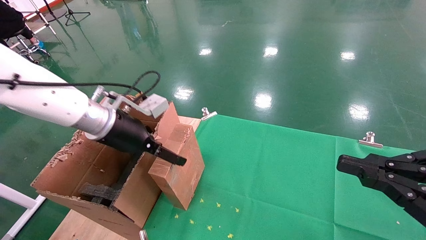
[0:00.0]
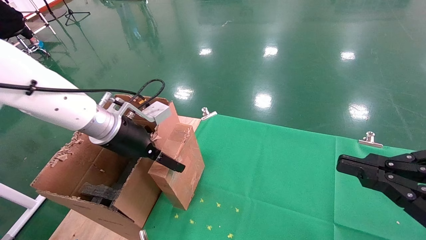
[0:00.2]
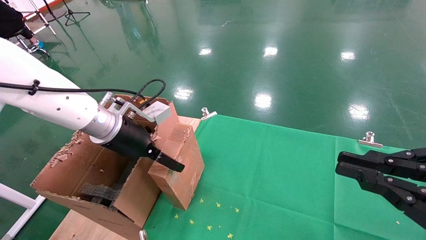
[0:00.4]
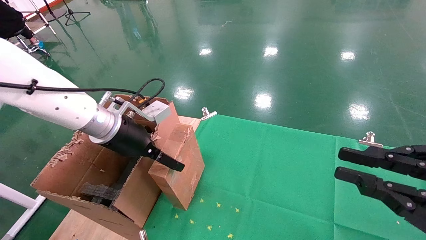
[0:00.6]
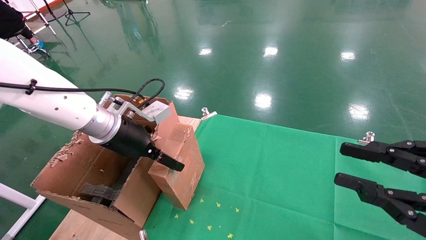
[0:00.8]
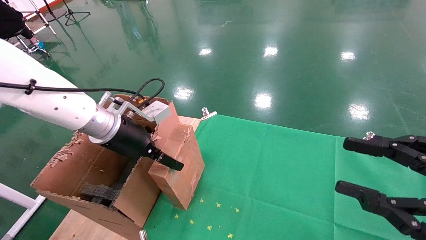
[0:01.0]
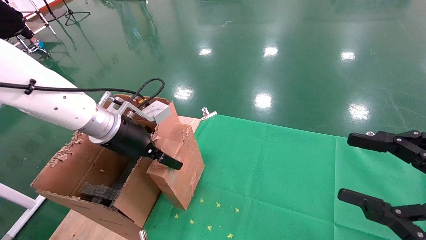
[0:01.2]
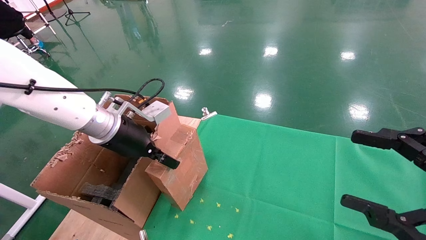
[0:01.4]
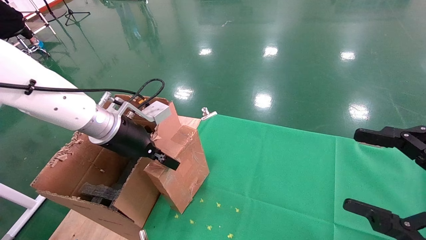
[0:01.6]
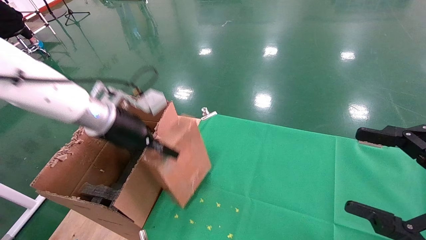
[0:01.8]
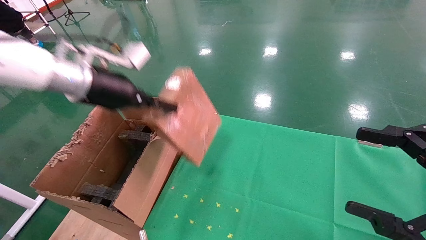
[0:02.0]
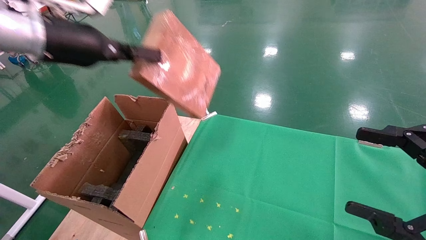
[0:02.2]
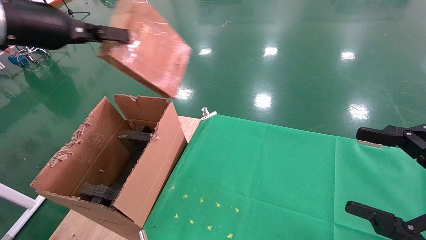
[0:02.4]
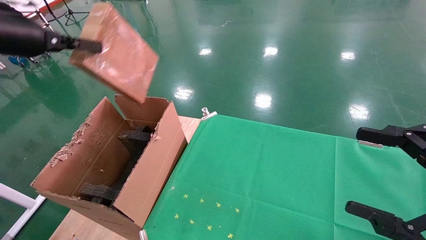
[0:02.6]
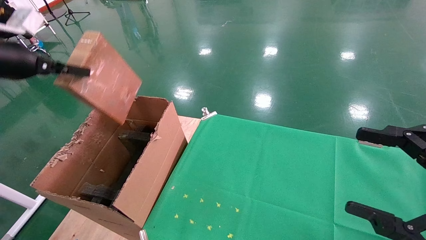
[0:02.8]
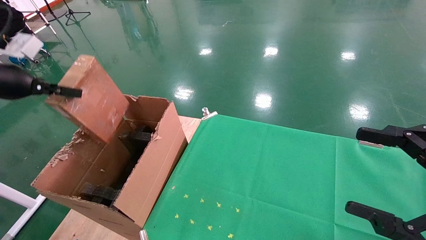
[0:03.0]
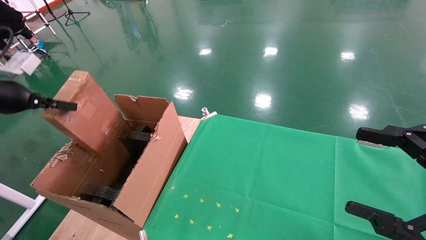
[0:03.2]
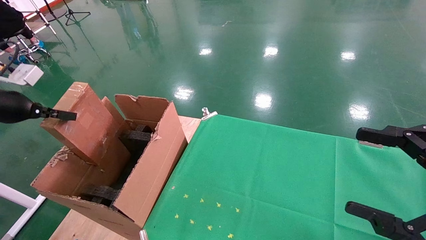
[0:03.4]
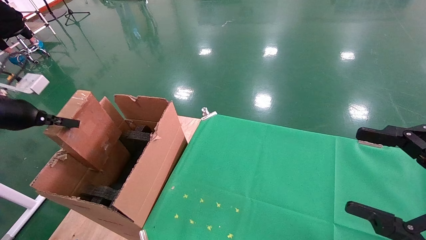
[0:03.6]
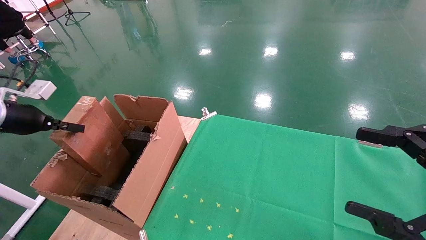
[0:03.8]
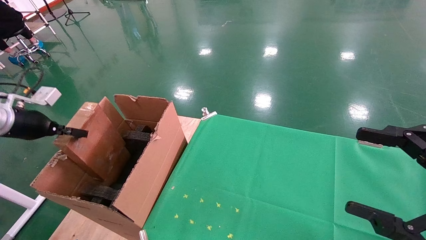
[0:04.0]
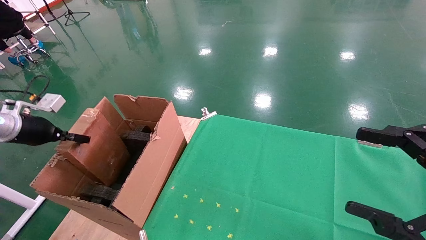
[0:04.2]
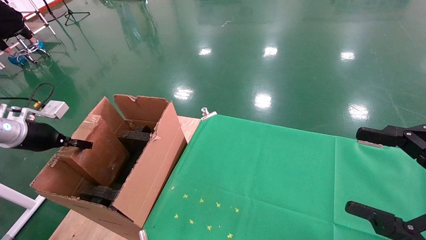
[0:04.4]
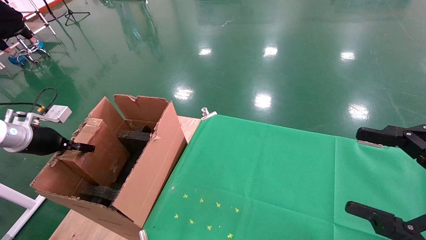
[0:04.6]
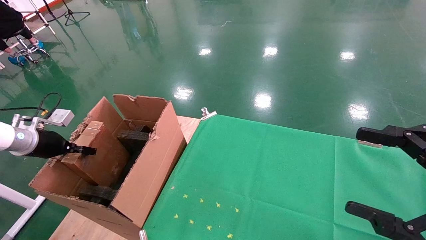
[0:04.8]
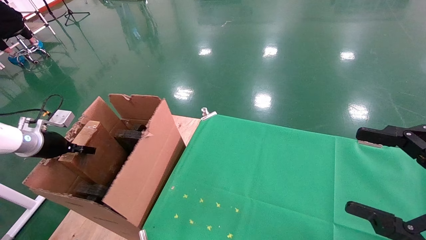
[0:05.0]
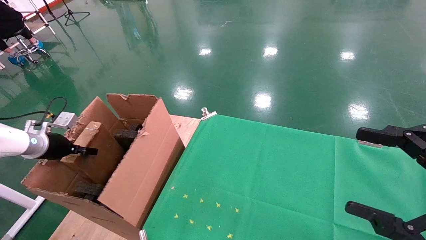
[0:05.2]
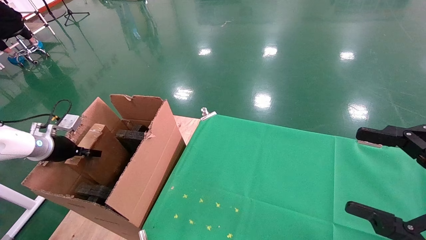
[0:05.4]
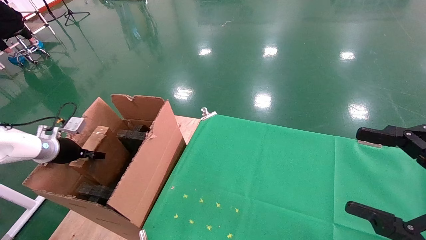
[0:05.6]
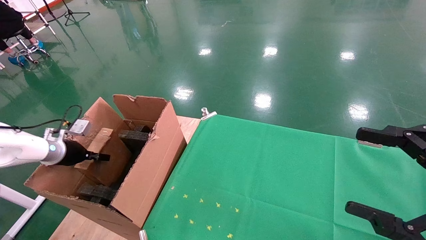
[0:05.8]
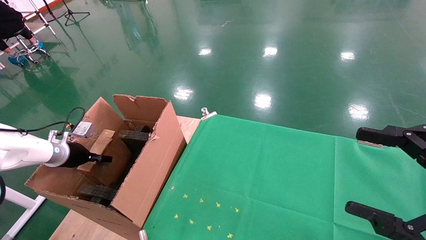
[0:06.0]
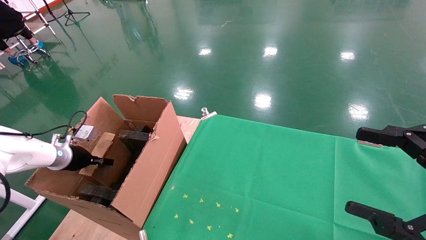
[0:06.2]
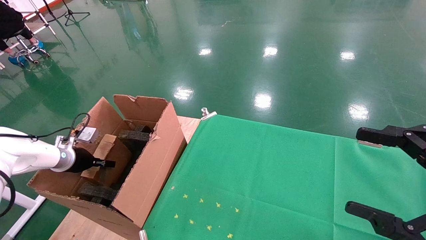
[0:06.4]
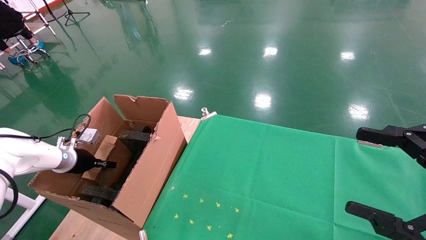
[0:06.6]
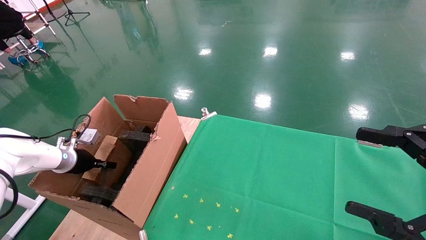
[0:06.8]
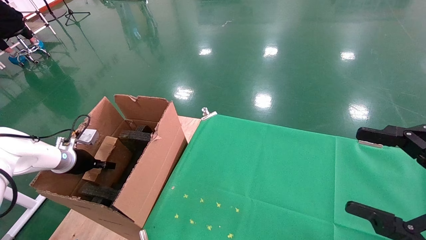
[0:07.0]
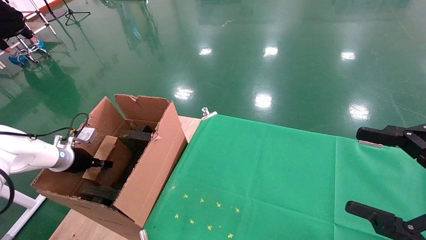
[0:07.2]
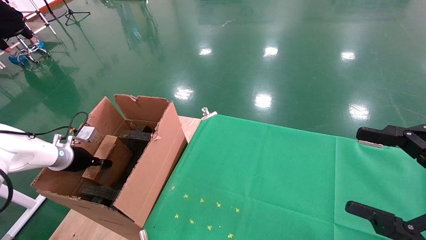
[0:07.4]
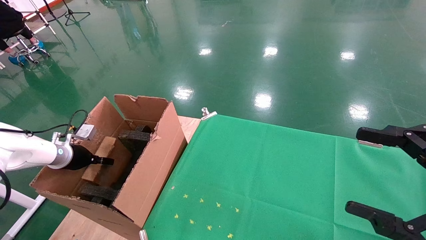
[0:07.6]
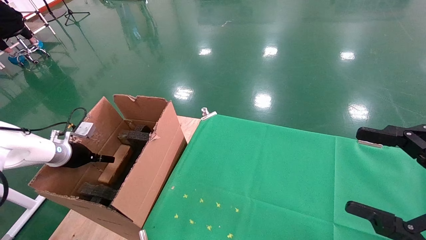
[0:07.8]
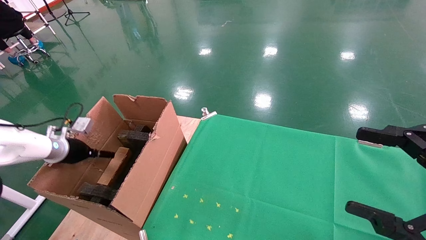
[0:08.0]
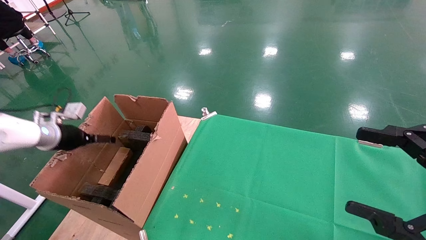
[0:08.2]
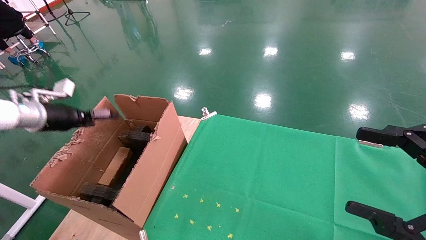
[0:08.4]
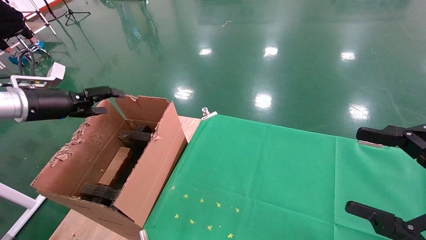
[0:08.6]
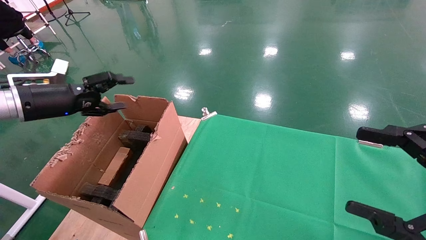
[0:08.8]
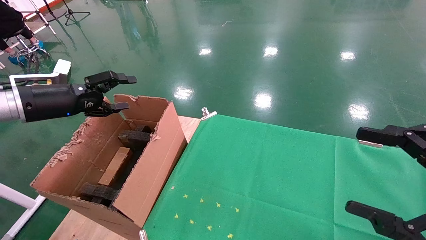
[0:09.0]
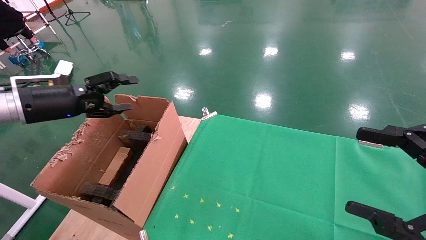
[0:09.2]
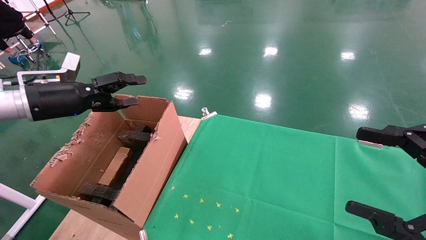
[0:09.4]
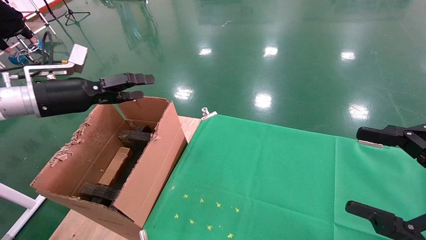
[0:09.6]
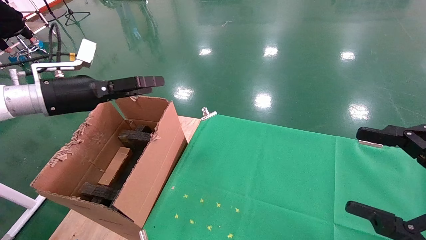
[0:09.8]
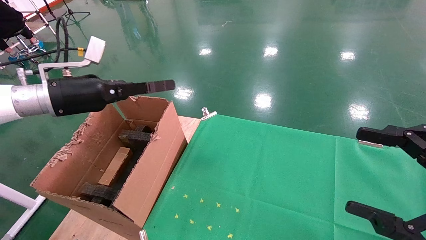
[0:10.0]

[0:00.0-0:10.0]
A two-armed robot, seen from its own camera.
Task of the whole recording: using a robotic arm to pick up a cardboard box and palace it the carton.
Step, 0:01.6 to 0:08.6: Place the mouse and the power cord paper box into the container.
0:00.0 to 0:01.4: The left gripper closes. The right gripper opens its fingers.
0:01.4 to 0:02.8: The left gripper shifts approximately 25 cm to the left and upward, and closes up.
0:02.8 to 0:04.2: The left gripper travels downward and to the left by some 15 cm.
0:04.2 to 0:05.8: The left gripper shifts roughly 10 cm downward and forward.
0:05.8 to 0:07.2: The grippers make only small movements.
0:07.2 to 0:08.6: The left gripper shifts about 15 cm upward, and opens up.
0:08.6 to 0:10.0: The left gripper travels to the right by about 10 cm.

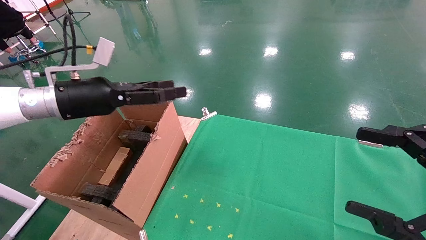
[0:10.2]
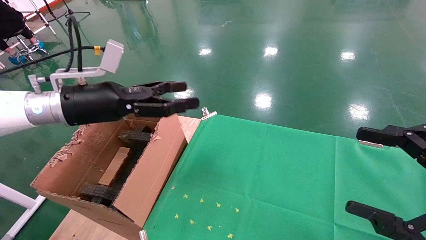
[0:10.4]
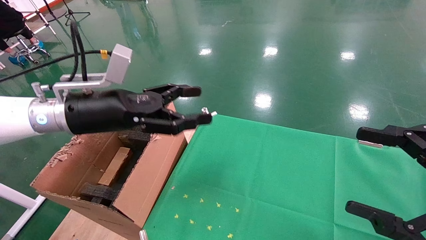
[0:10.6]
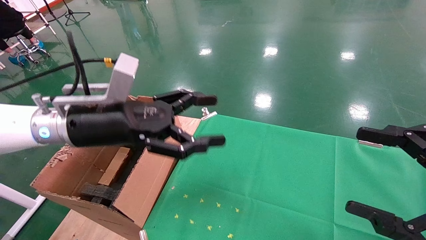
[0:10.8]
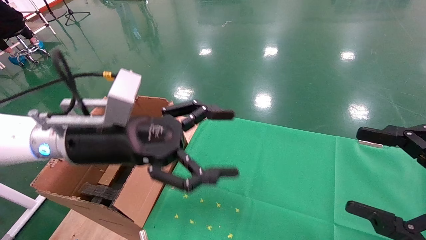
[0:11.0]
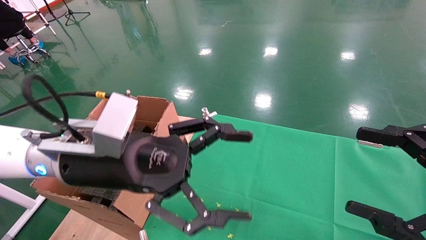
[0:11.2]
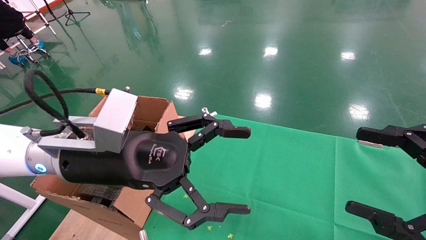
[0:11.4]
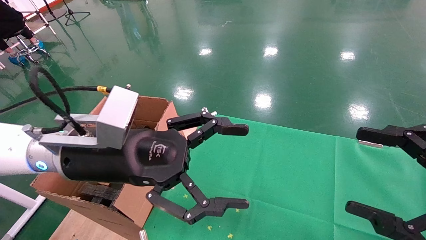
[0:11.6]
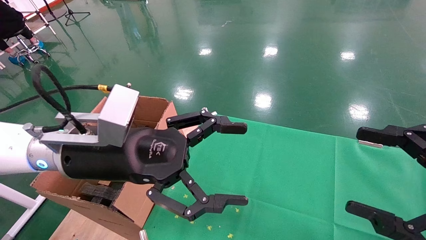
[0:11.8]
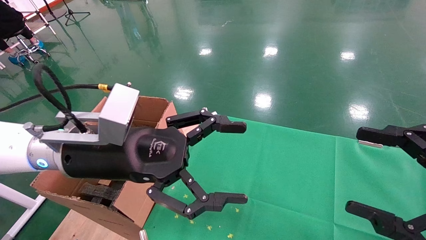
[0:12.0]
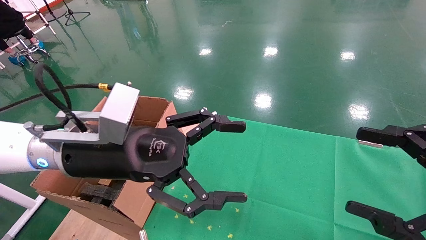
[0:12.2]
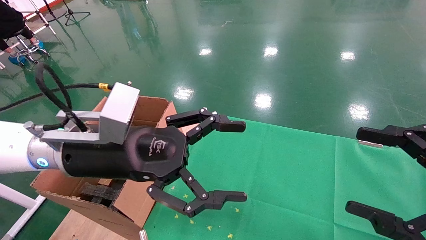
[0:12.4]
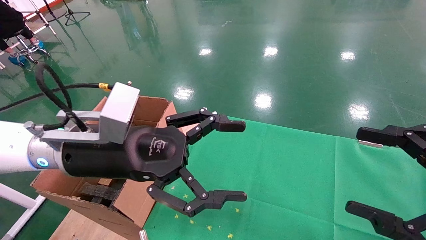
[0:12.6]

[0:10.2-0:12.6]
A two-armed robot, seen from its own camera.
Task of the whole recording: using a robotic arm to pick up a cardboard box and palace it the carton.
0:10.2 to 0:11.4: The left gripper moves to the right and backward, roughly 15 cm.
0:11.4 to 0:12.6: Neither gripper changes place.
